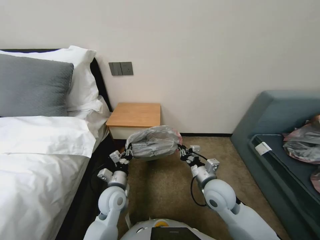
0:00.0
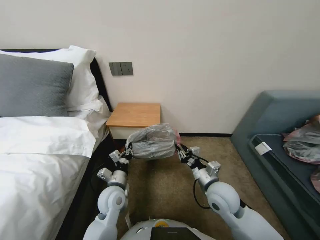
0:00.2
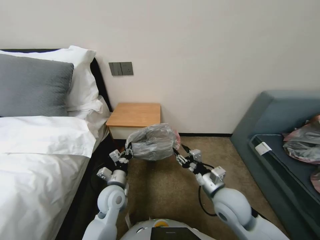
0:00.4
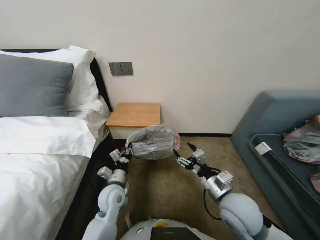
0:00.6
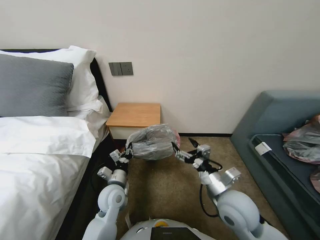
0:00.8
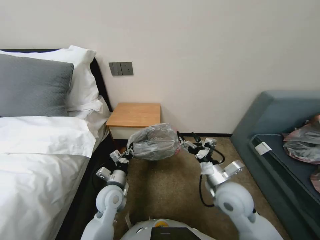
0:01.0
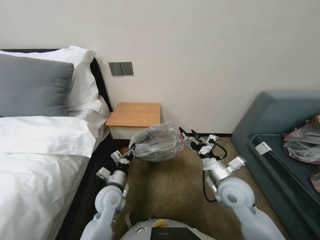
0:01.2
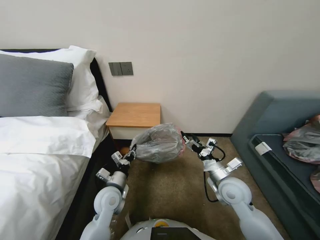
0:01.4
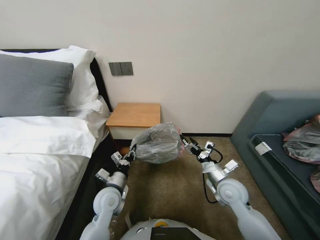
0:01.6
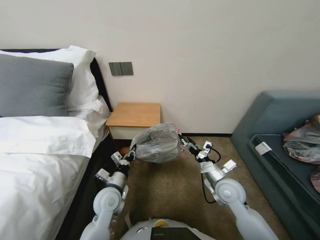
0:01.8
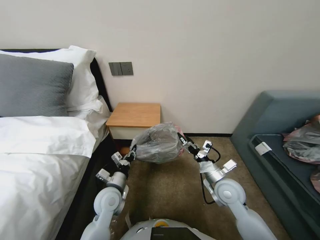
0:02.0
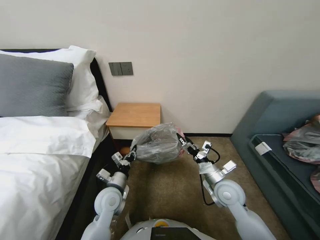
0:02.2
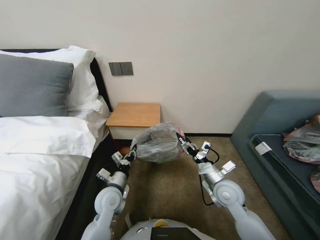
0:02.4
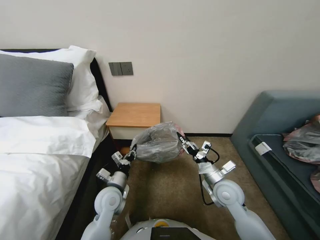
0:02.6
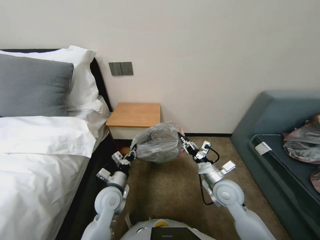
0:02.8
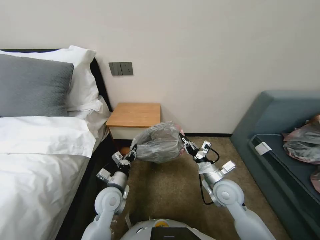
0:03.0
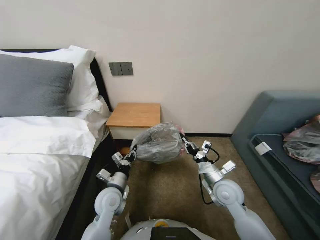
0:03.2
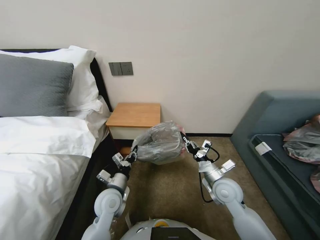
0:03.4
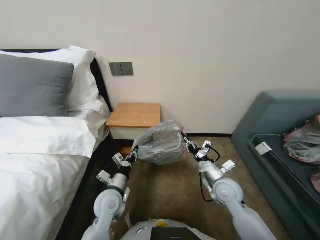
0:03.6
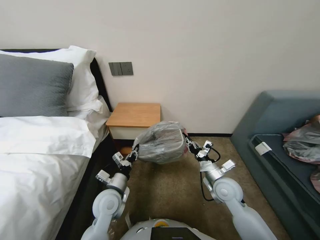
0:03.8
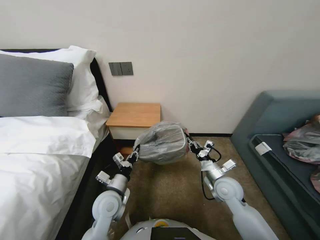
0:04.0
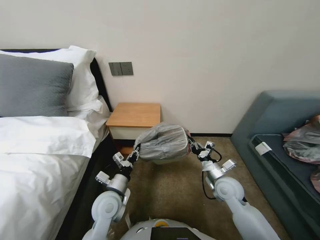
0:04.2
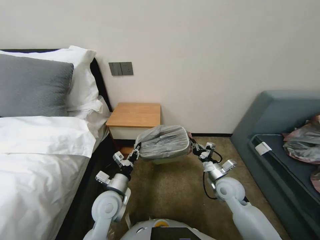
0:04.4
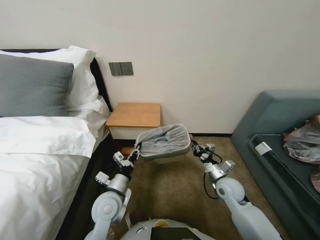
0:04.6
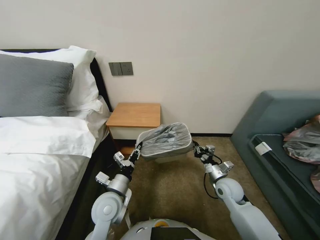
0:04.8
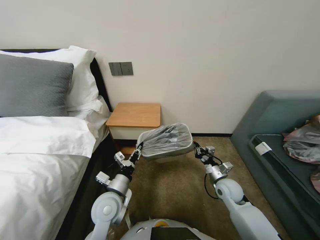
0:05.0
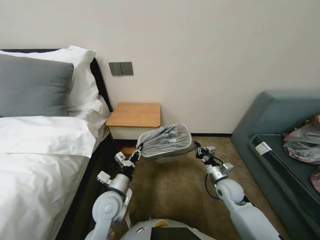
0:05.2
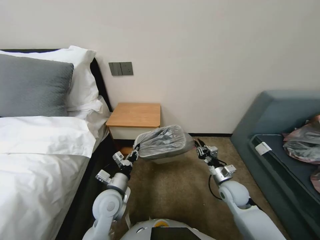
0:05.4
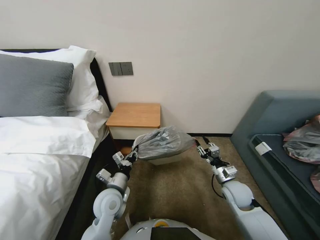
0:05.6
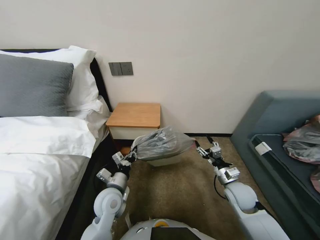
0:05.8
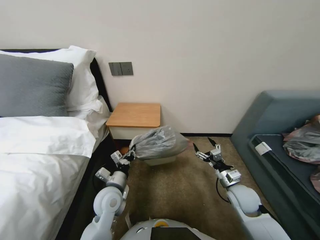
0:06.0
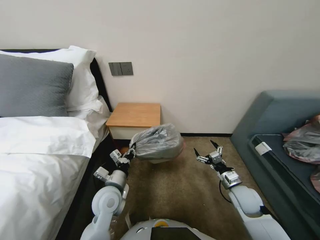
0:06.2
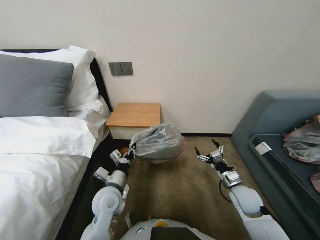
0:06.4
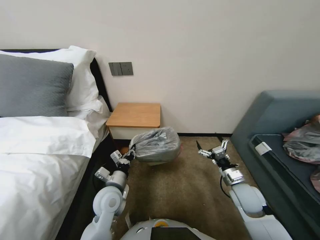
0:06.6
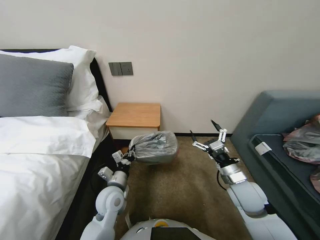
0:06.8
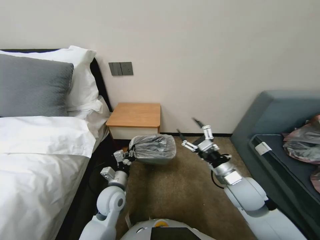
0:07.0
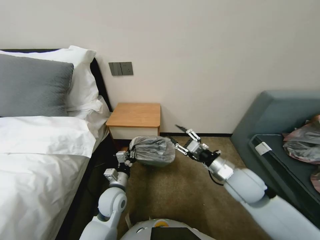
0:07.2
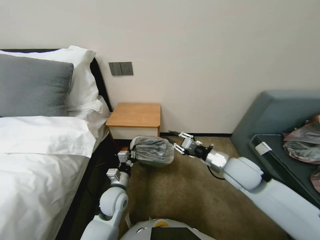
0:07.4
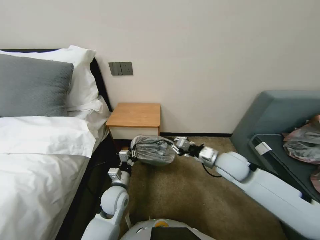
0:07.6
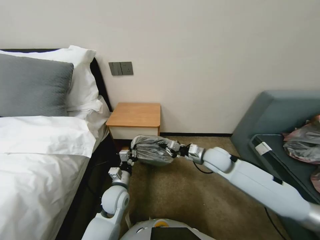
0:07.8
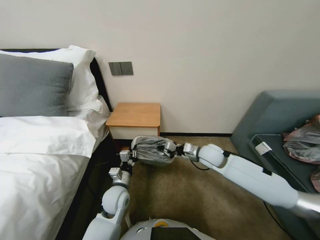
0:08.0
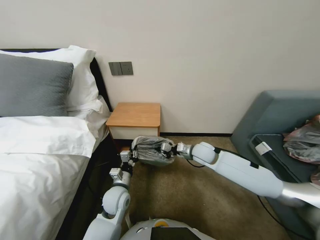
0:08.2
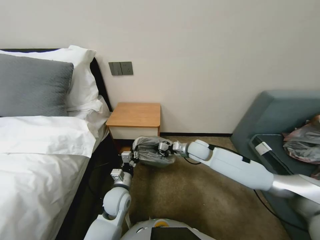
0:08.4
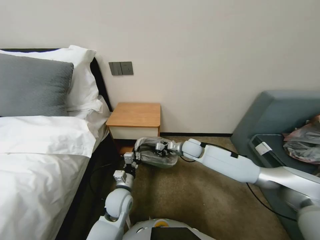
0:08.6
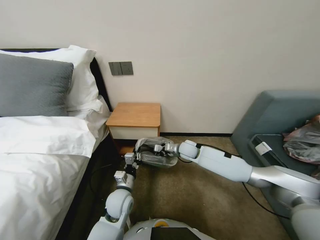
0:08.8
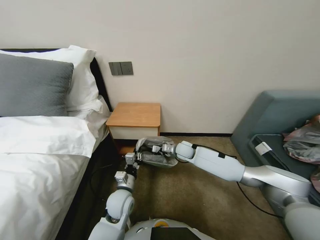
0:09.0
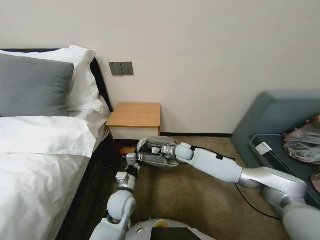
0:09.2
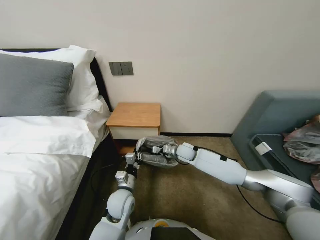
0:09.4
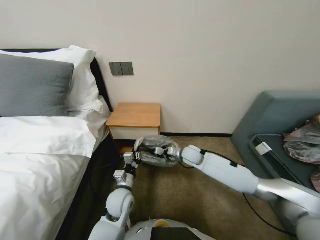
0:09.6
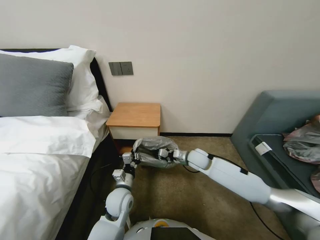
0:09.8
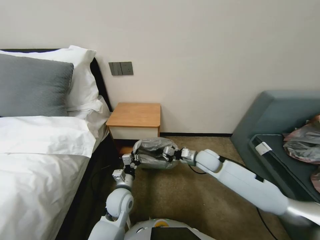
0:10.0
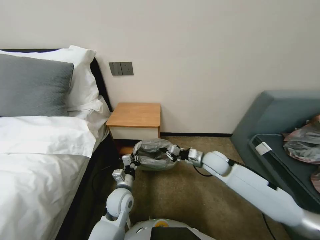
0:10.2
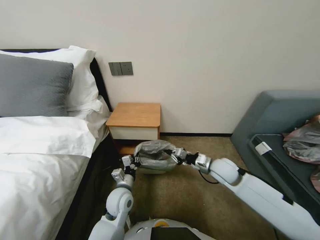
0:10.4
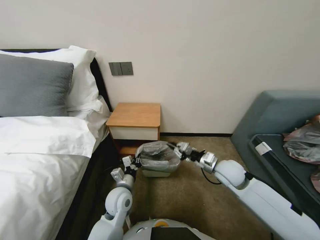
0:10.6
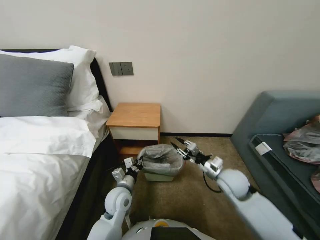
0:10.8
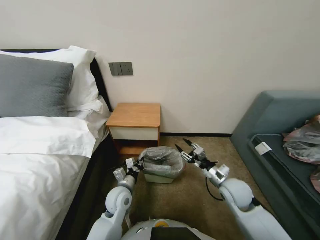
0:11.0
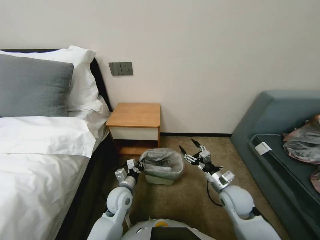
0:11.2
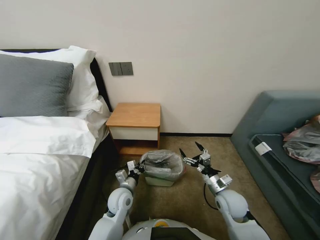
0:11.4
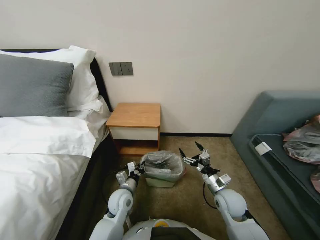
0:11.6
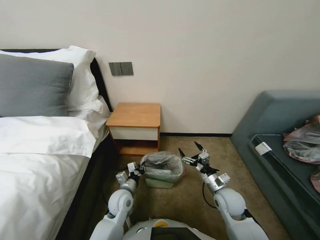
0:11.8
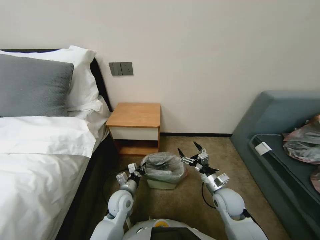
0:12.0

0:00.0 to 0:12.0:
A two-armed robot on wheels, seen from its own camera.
Task of the whole recording: Pick up the garbage bag from the table and place it over the trash can.
0:00.0 to 0:01.6: The right gripper goes approximately 5 cm to the right, and opens up.
0:01.6 to 0:03.0: The right gripper closes up.
0:03.0 to 0:04.4: The grippers stay close to where they were, moving slightly.
0:04.4 to 0:06.0: The right gripper opens up.
0:06.0 to 0:07.6: The right gripper is displaced upward, to the left and forward by some 15 cm, and closes.
0:07.6 to 0:09.0: The right gripper moves forward, downward and to the left, about 20 cm.
0:09.0 to 0:10.4: The right gripper is displaced backward and to the right by some 15 cm.
0:10.4 to 0:12.0: The right gripper shifts about 15 cm backward and downward, and opens up.

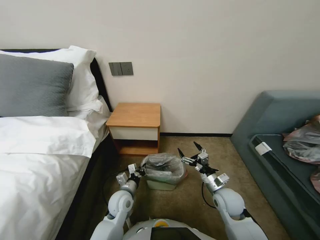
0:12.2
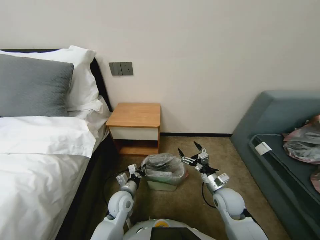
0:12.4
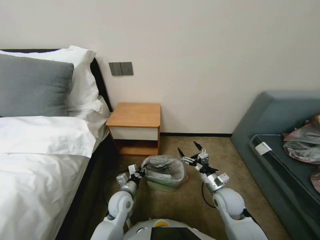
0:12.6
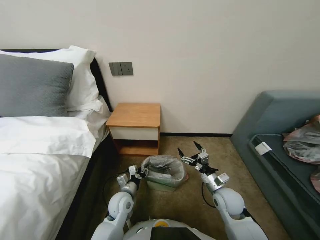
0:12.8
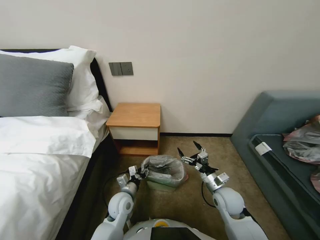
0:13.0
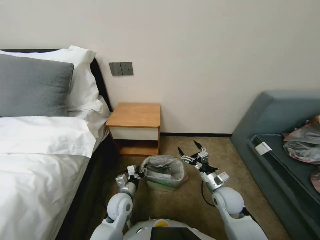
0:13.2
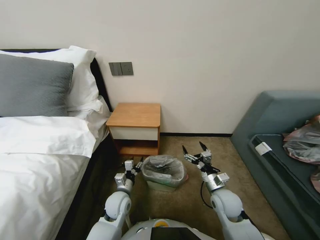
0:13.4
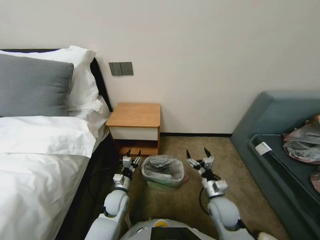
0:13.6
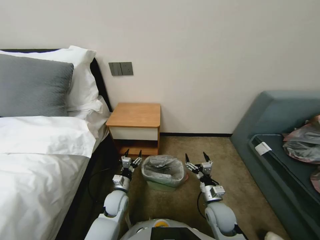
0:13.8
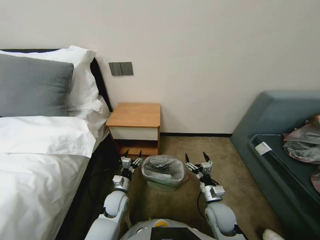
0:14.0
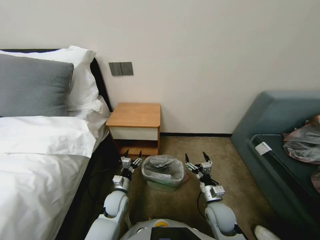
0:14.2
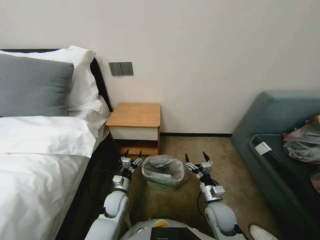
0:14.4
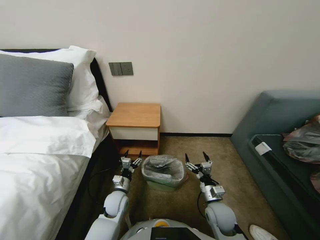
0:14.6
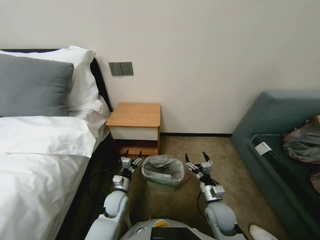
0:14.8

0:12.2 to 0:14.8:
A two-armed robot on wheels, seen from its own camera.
Task of the whole recording: Pick up the garbage bag from the table and place it over the trash can.
0:12.2 to 0:13.4: The left gripper opens its fingers.
0:13.4 to 0:14.8: The right gripper ends up approximately 5 cm from where it was, while the left gripper ends up some 5 cm from where it was.

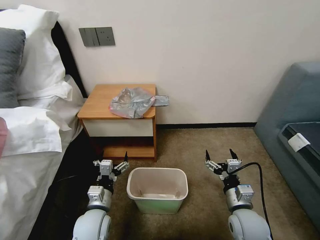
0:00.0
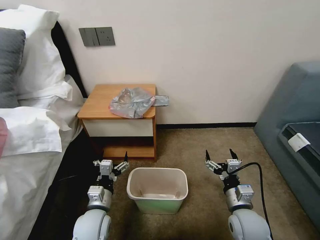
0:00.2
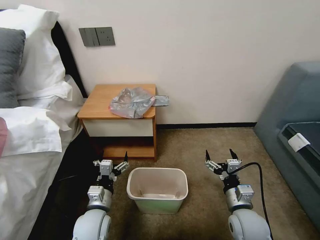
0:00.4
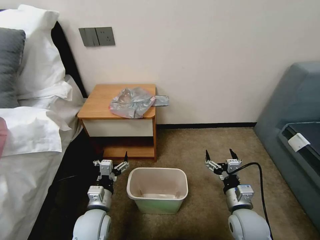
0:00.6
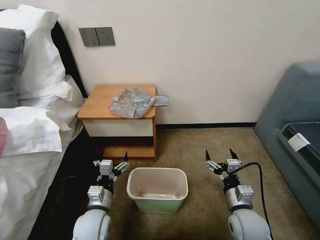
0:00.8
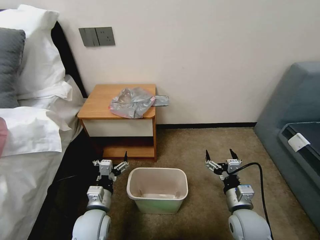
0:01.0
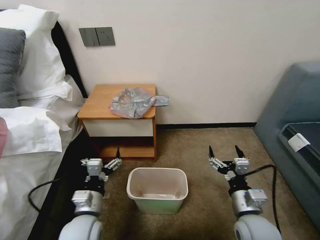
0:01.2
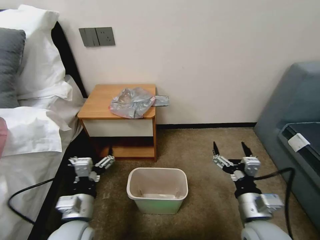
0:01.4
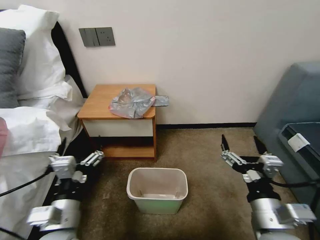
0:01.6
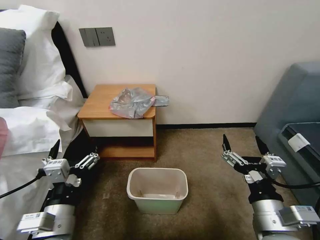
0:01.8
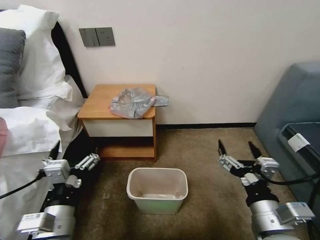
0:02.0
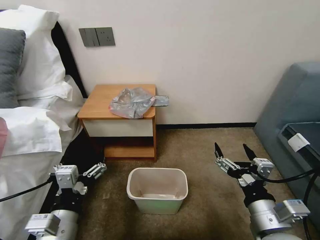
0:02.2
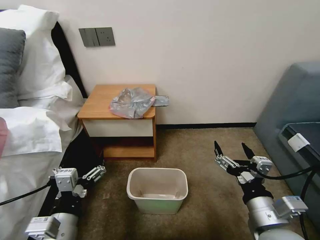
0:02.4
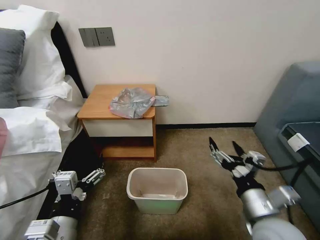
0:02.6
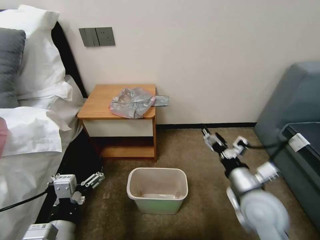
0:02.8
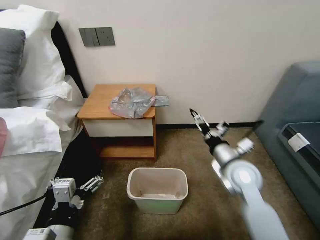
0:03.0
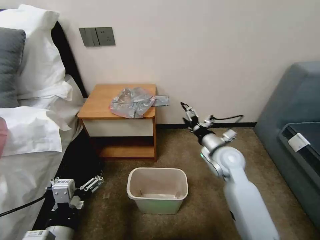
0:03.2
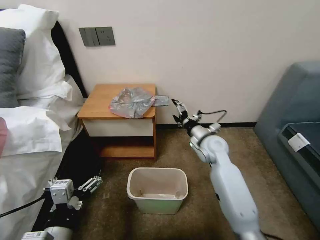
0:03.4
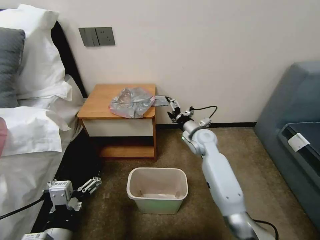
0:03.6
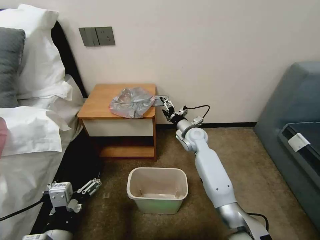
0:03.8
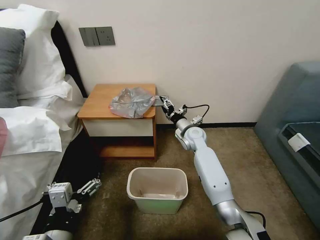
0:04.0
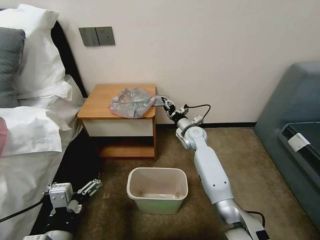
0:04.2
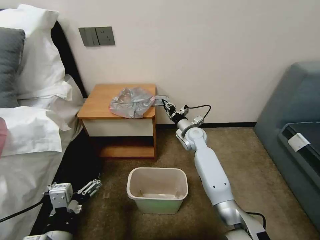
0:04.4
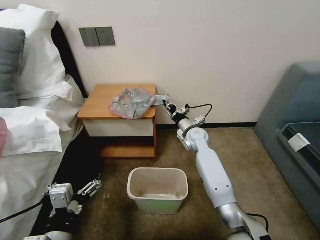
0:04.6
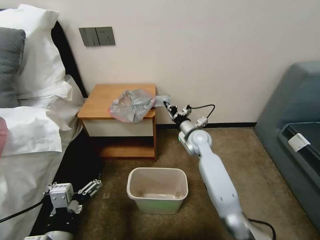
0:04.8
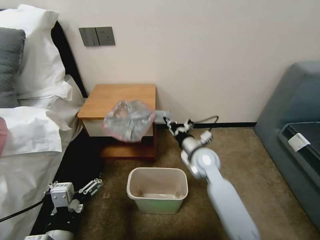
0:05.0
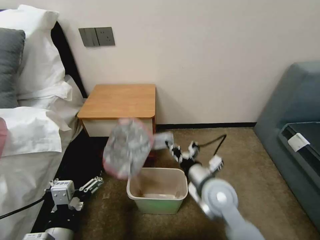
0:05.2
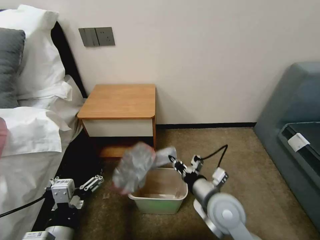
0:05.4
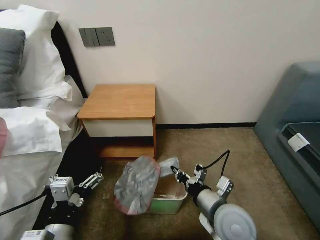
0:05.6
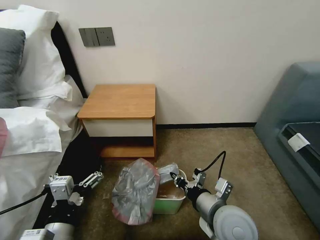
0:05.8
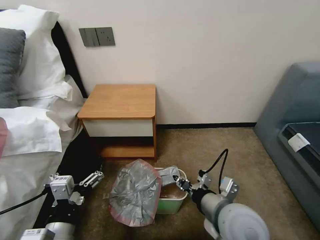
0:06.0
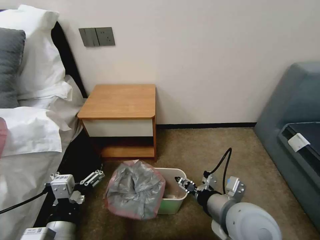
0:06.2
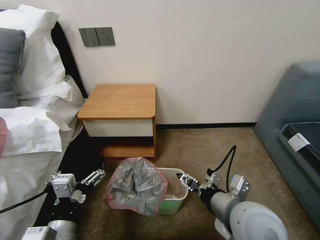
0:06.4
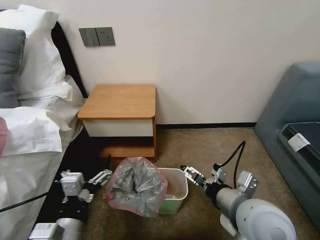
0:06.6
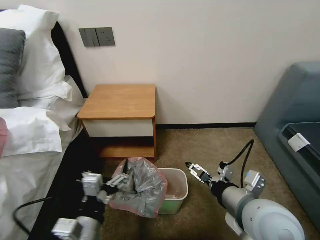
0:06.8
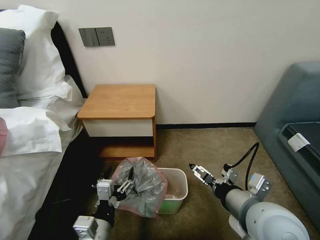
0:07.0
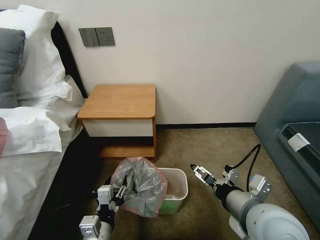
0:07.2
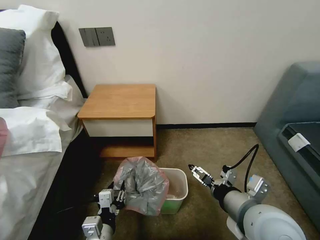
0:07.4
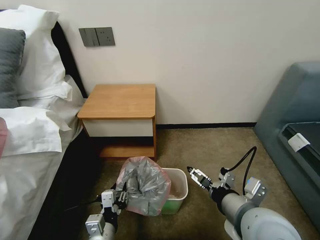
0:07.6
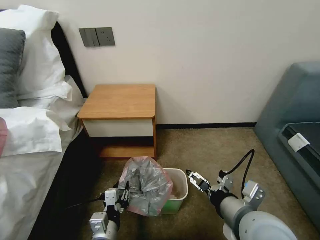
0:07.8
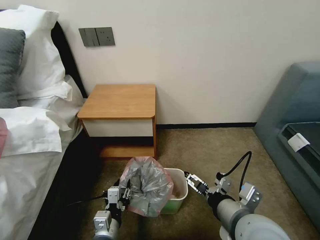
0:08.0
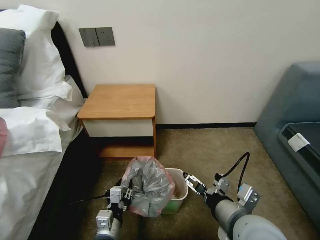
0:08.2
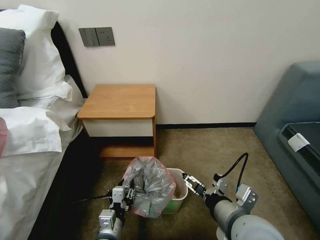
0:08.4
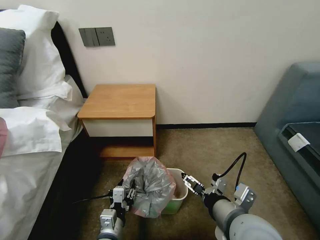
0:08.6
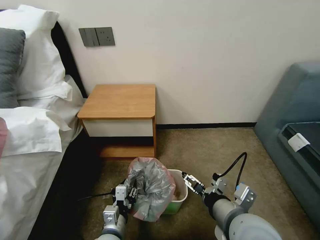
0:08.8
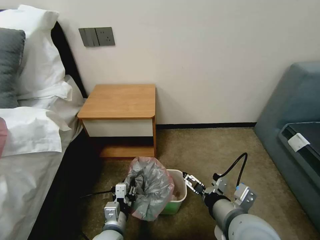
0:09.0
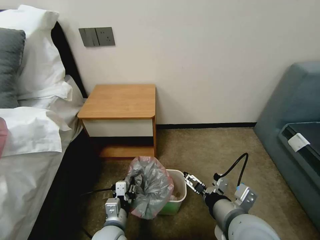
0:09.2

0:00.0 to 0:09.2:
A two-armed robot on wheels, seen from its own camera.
Task of the whole recording: Pick up the garbage bag from the table and place it over the trash can.
0:01.6 to 0:03.0: The right gripper goes some 15 cm forward. The left gripper travels backward by roughly 5 cm.
0:03.0 to 0:04.6: The right gripper moves forward and to the left, approximately 20 cm, and closes.
0:04.6 to 0:06.2: The right gripper travels backward by some 30 cm, and opens its fingers.
0:06.2 to 0:07.6: The left gripper shifts some 10 cm downward and to the right, and closes up. Meanwhile the right gripper opens.
0:07.6 to 0:09.2: The left gripper heads forward, covering roughly 5 cm.
